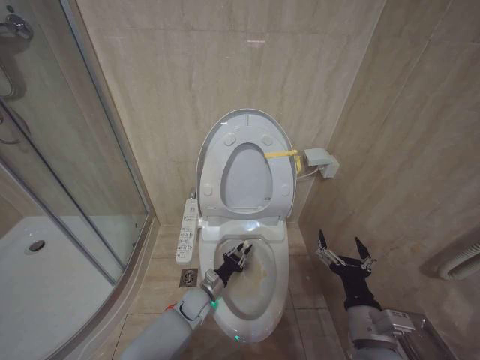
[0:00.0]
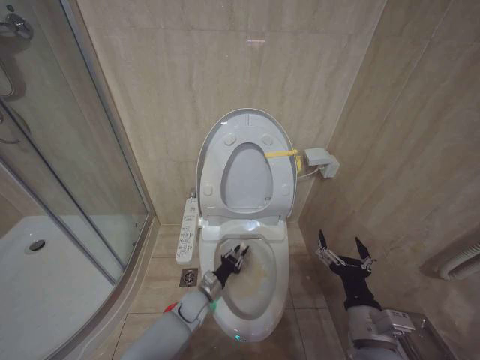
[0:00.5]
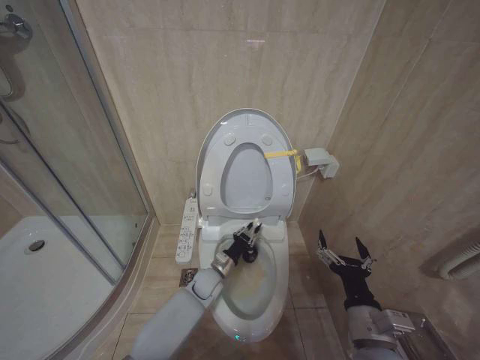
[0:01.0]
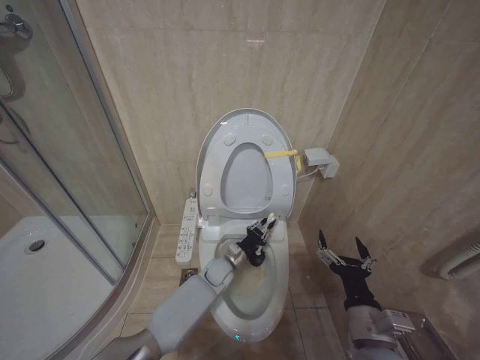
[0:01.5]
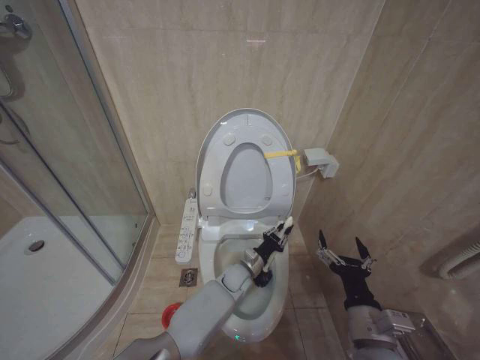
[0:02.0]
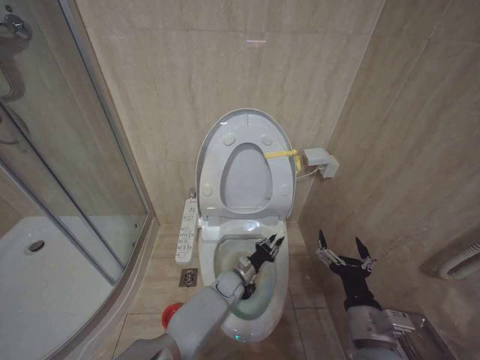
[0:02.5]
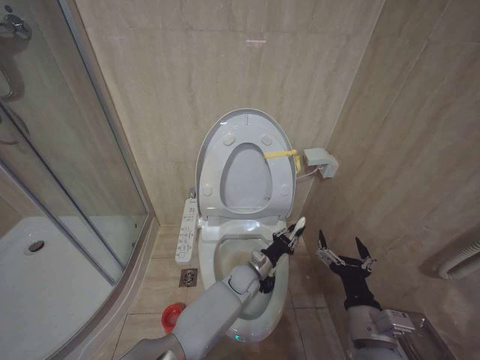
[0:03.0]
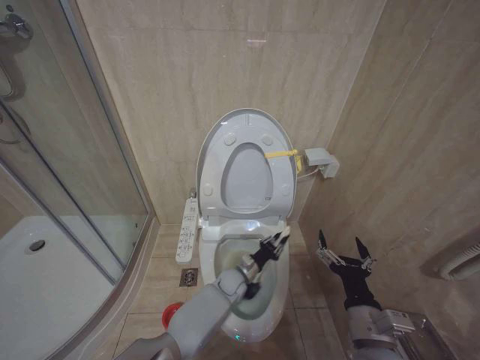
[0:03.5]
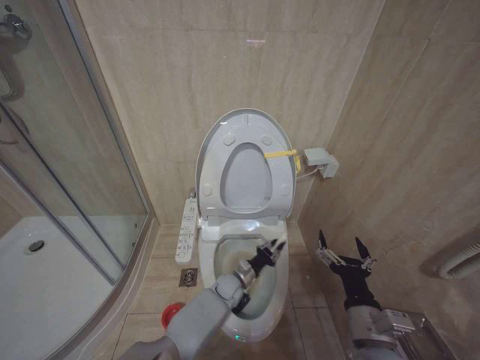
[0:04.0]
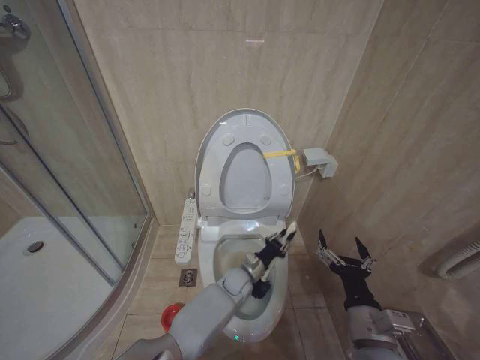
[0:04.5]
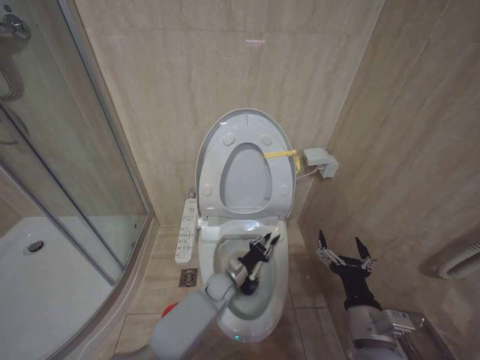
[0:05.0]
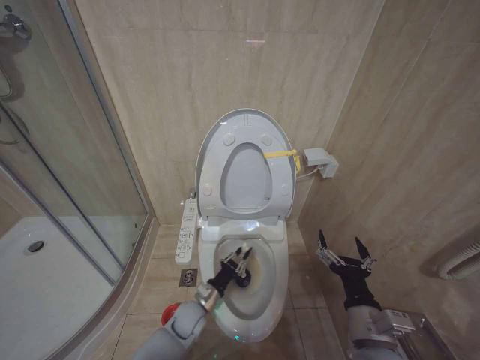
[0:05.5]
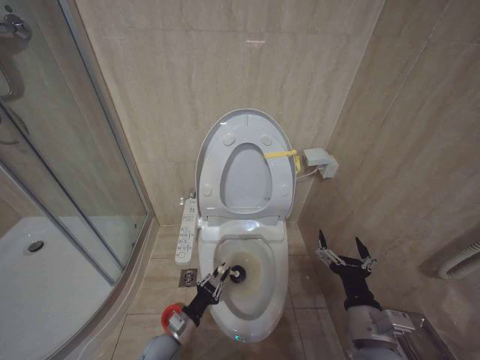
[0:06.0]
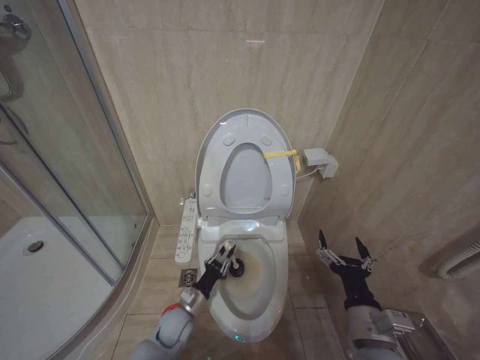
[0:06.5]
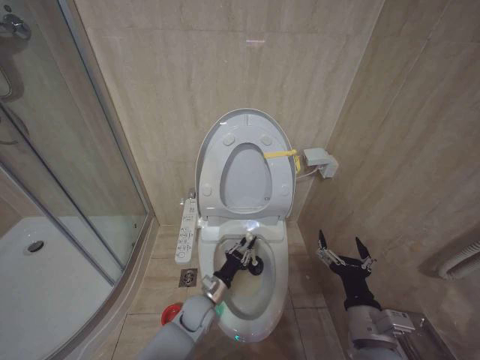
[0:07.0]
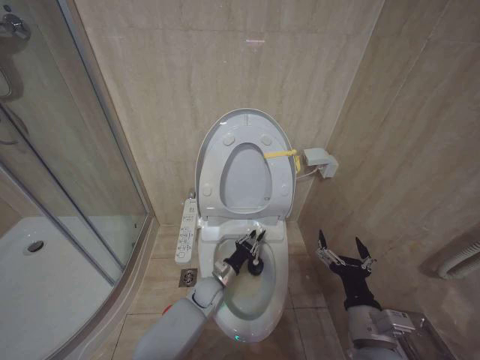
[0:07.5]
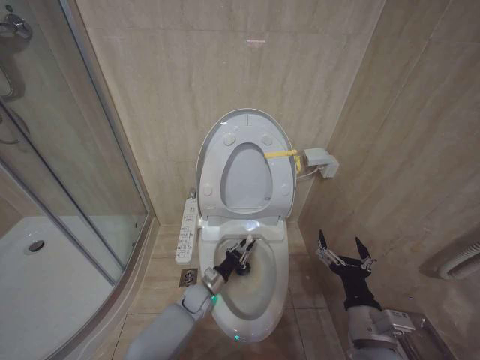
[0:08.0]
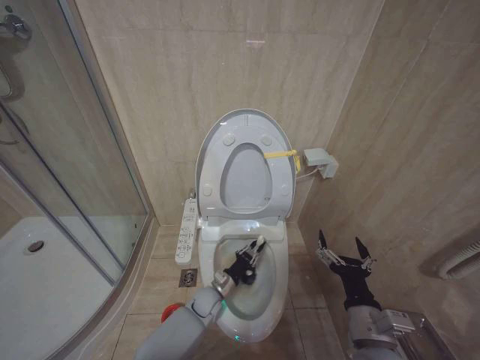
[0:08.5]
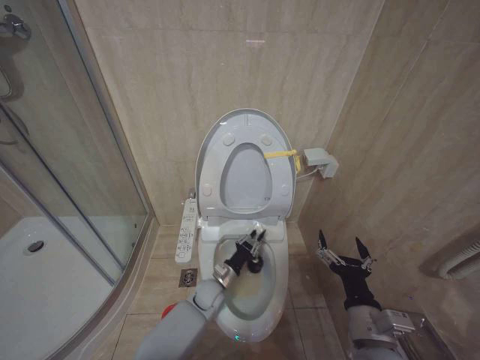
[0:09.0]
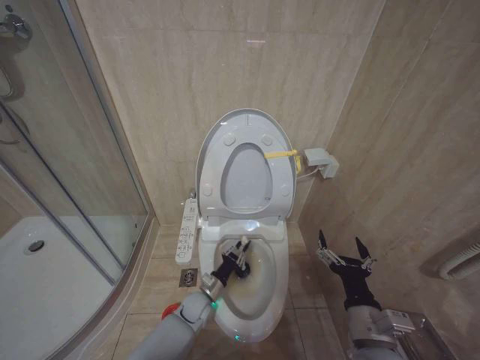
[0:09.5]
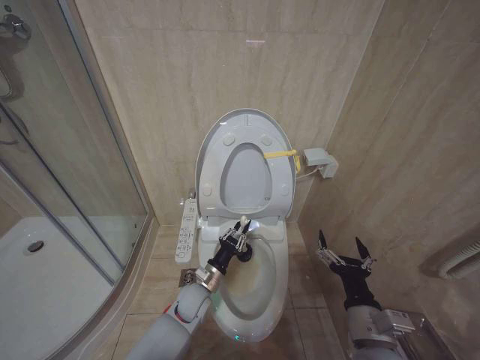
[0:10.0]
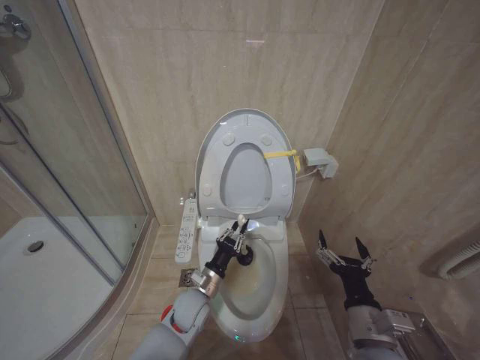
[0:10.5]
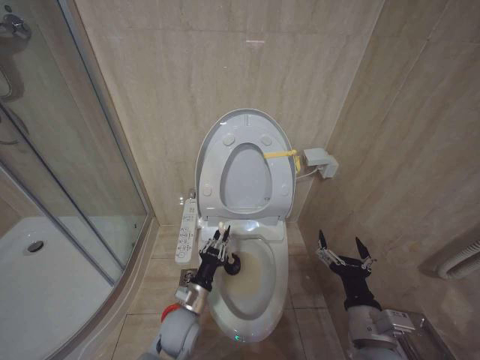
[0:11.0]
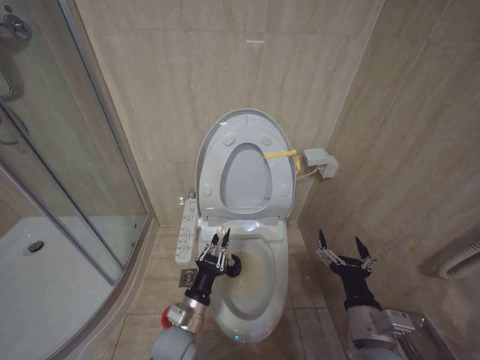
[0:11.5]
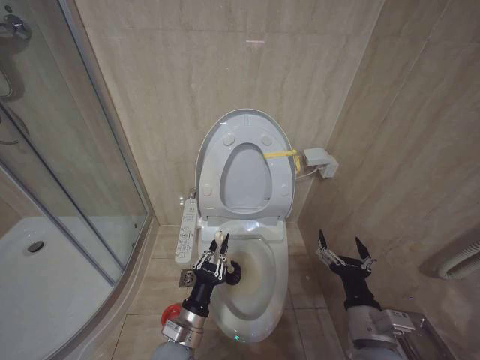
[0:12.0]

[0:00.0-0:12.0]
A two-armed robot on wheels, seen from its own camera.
Task of the whole recording: Open the toilet lid, clean the toilet bowl with a toilet brush, close the toilet lid, and flush.
0:00.0 to 0:02.0: The left gripper goes about 15 cm to the right and forward.
0:02.0 to 0:04.0: The left gripper swings up and down, approximately 5 cm each way, with 2 reversals.
0:04.0 to 0:06.0: The left gripper heads to the left and backward, covering about 25 cm.
0:06.0 to 0:08.0: The left gripper is displaced forward and to the right by some 15 cm.
0:08.0 to 0:10.0: The left gripper goes up and down, approximately 5 cm each way, reversing 2 times.
0:10.0 to 0:12.0: The left gripper heads backward and upward, covering approximately 15 cm.

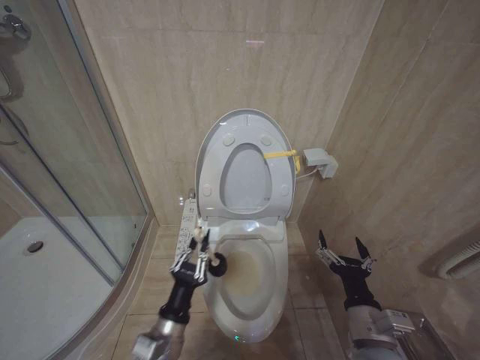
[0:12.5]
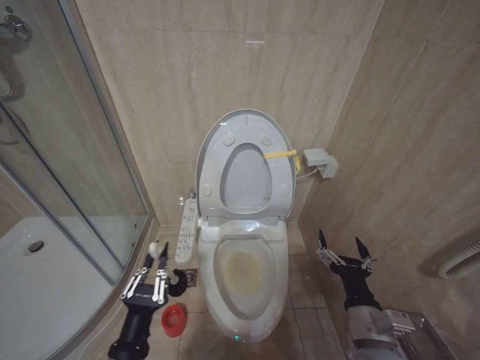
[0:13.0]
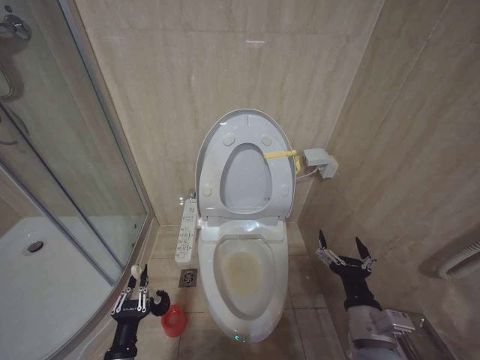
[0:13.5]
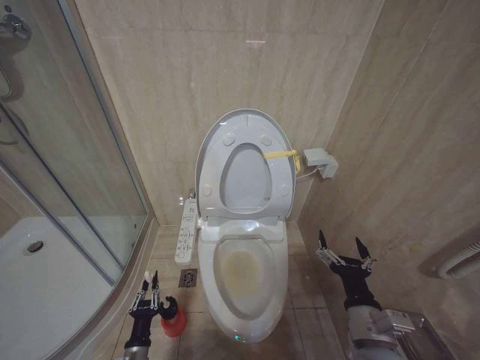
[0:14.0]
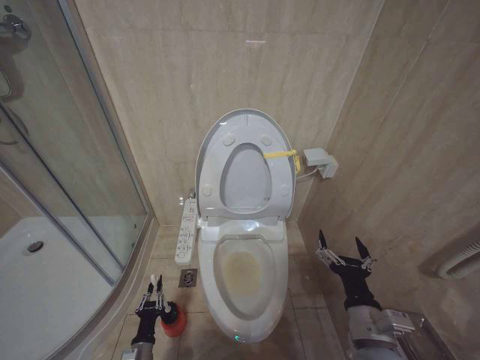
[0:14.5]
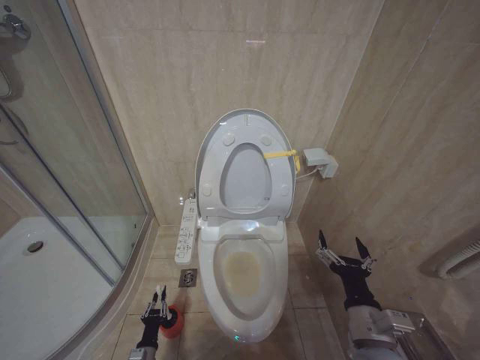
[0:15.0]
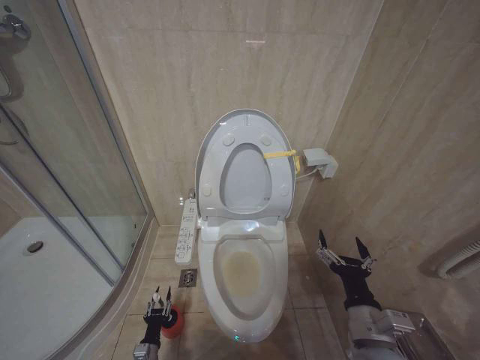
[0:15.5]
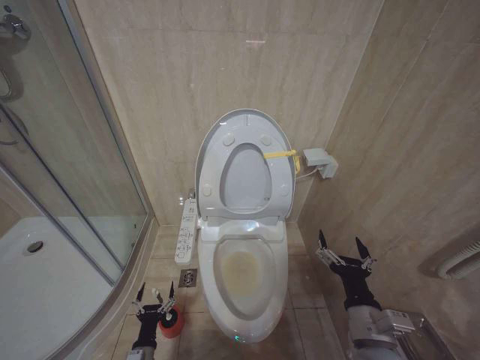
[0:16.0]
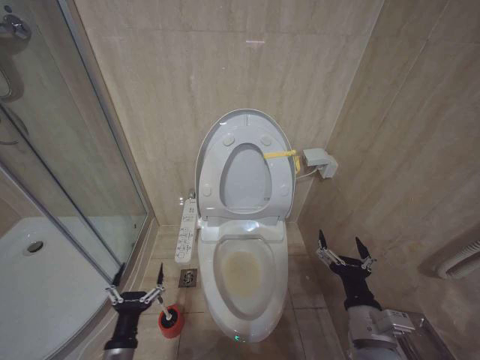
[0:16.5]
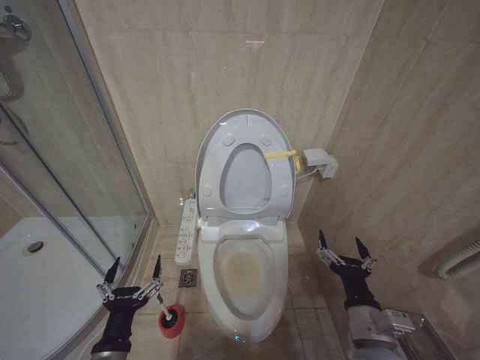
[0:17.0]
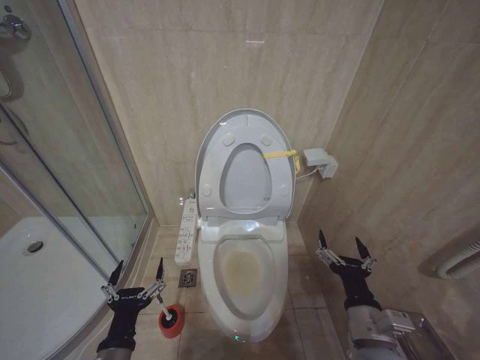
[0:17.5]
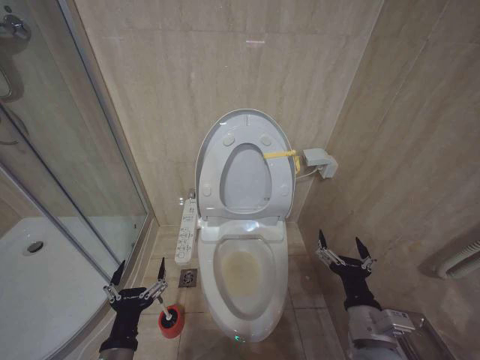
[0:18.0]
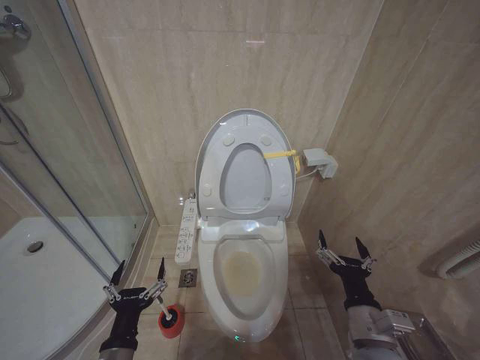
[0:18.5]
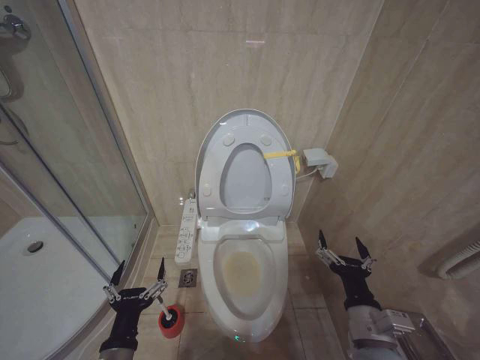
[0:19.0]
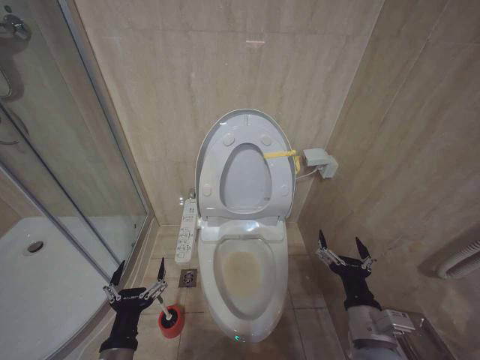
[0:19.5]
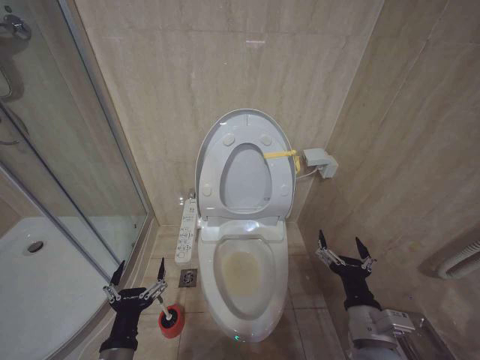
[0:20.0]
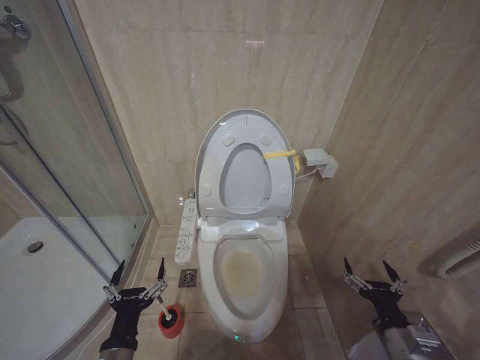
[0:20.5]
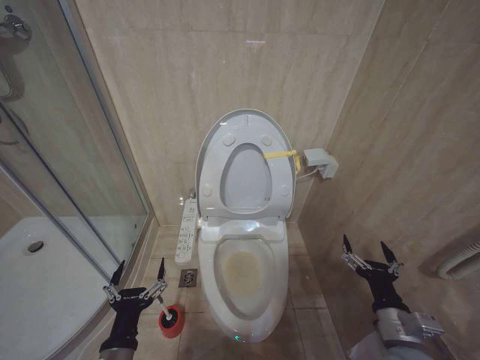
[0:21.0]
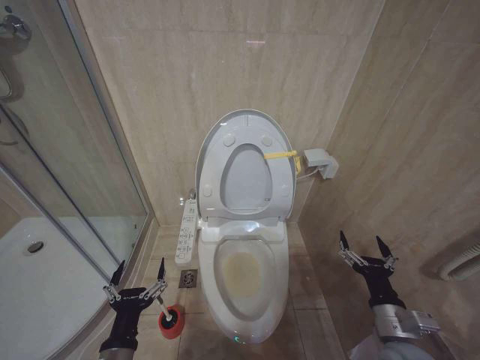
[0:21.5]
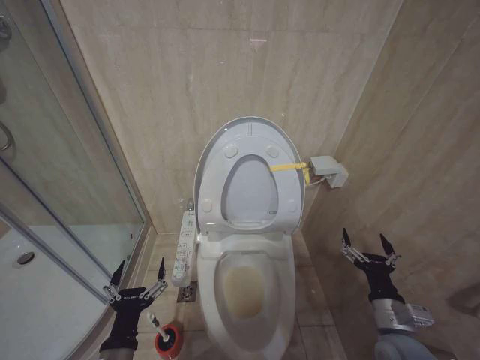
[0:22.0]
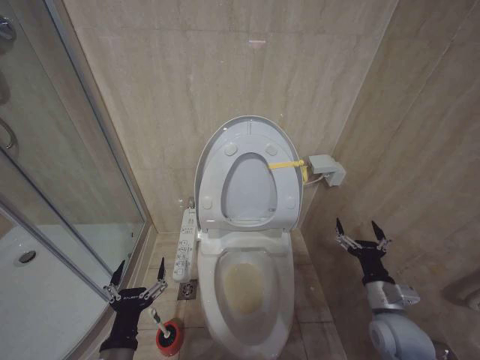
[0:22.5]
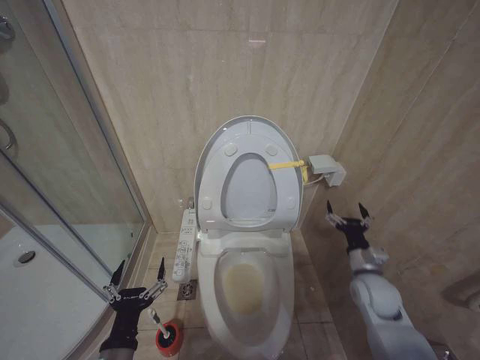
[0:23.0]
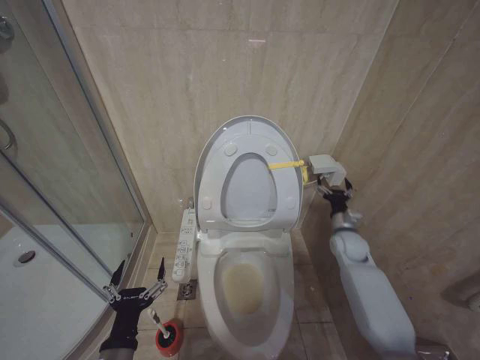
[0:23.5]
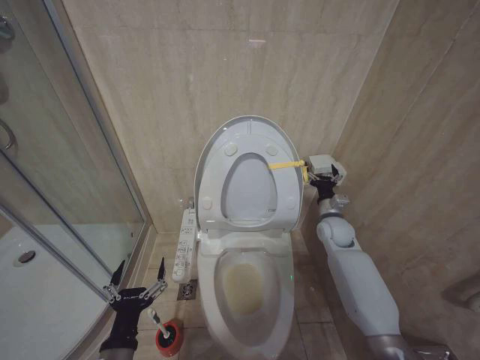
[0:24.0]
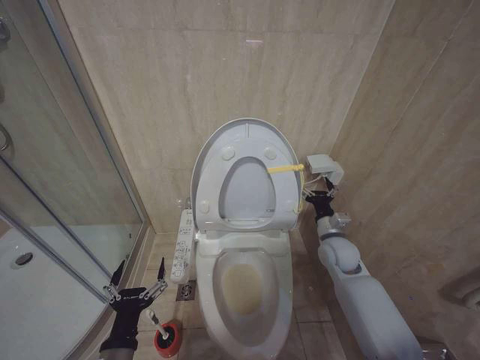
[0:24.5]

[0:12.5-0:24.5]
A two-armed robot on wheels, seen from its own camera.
Task of the whole recording: Open the toilet lid, clean the toilet bowl with a toilet brush, close the toilet lid, and flush.
0:12.5 to 0:14.5: The left gripper goes about 25 cm downward and to the left.
0:14.5 to 0:16.5: The left gripper moves upward, about 15 cm, and opens.
0:16.5 to 0:18.5: The left gripper goes some 10 cm upward.
0:18.5 to 0:20.5: The right gripper is displaced to the right by about 10 cm.
0:20.5 to 0:22.5: The right gripper moves forward, approximately 10 cm.
0:22.5 to 0:24.5: The right gripper goes roughly 20 cm forward.

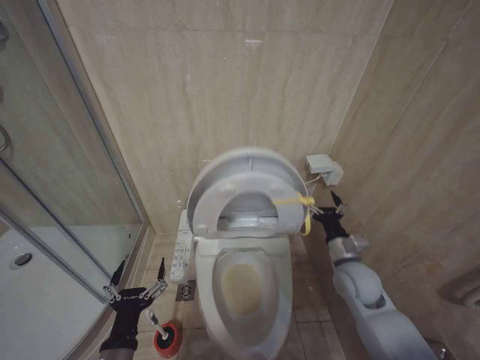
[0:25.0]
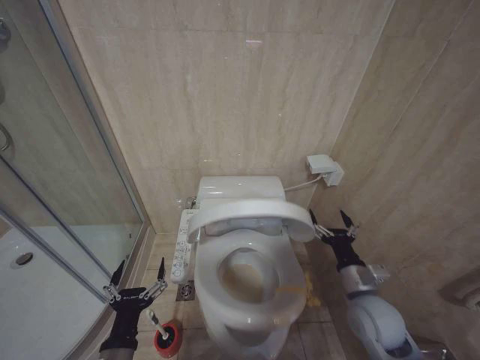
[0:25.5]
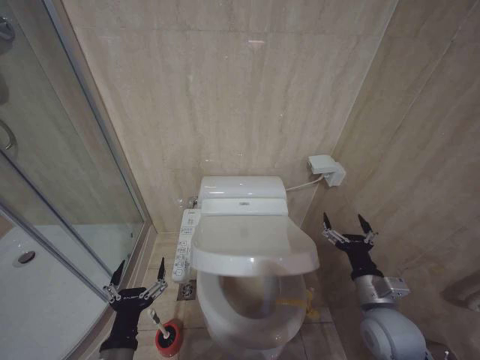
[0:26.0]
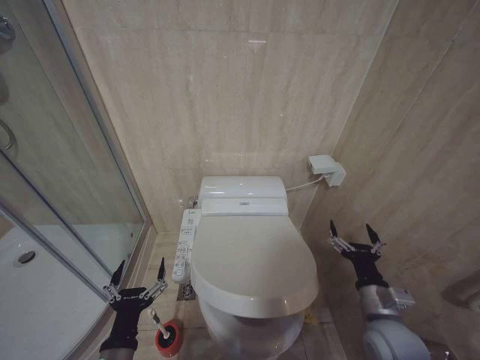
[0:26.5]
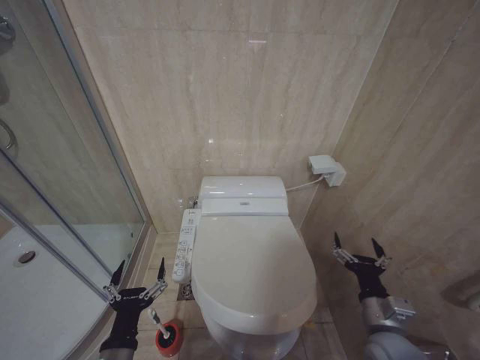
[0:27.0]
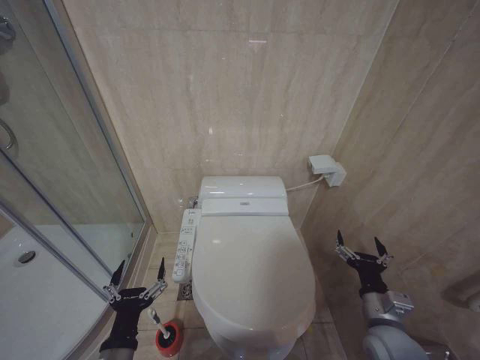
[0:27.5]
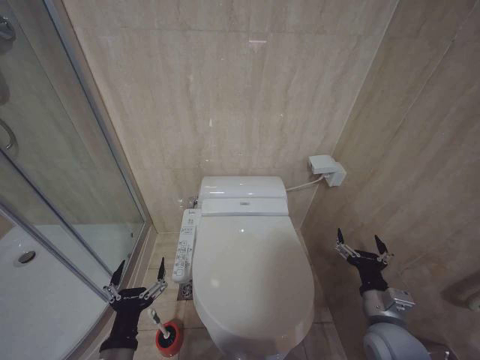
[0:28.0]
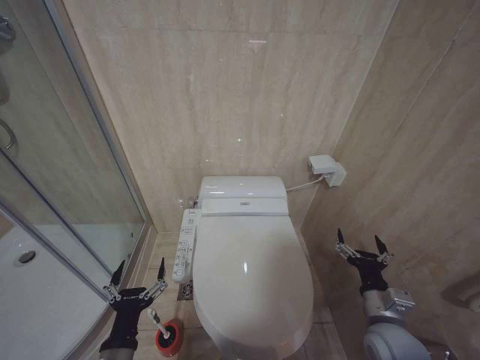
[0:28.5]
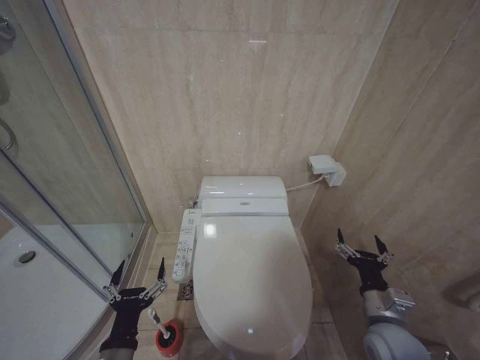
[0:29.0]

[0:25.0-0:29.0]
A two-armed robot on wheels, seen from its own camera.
Task of the whole recording: Open the toilet lid, clean the toilet bowl with a toilet brush, close the toilet lid, and flush.
0:25.0 to 0:27.0: The right gripper goes about 15 cm backward.
0:27.0 to 0:29.0: The grippers stay close to where they were, moving slightly.
